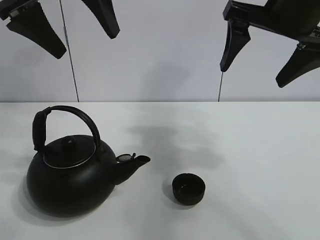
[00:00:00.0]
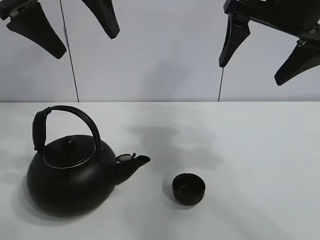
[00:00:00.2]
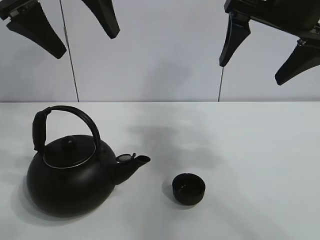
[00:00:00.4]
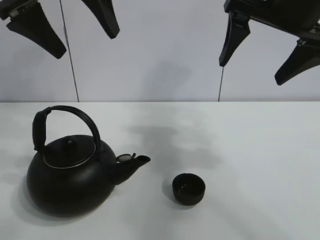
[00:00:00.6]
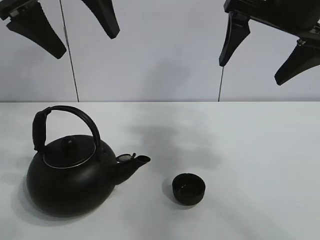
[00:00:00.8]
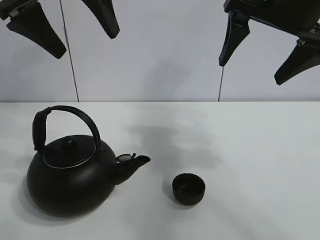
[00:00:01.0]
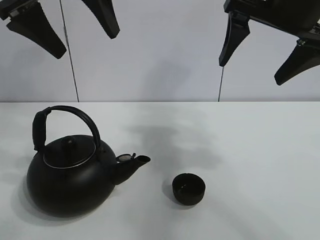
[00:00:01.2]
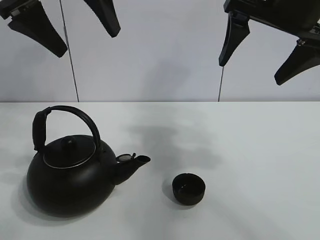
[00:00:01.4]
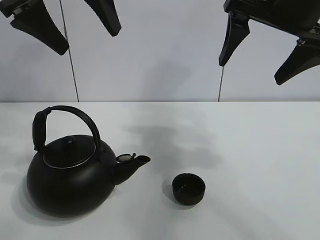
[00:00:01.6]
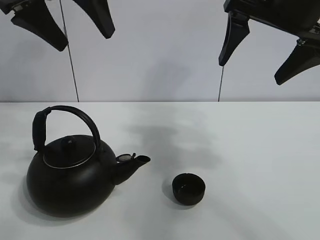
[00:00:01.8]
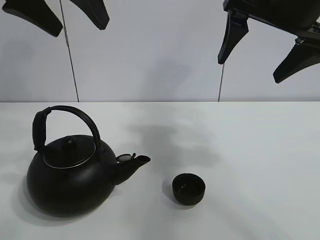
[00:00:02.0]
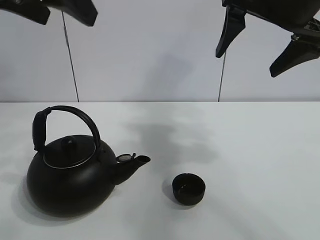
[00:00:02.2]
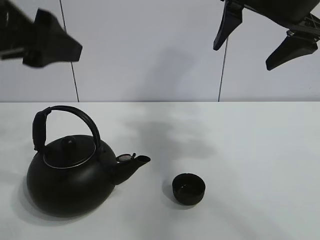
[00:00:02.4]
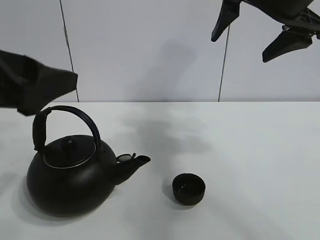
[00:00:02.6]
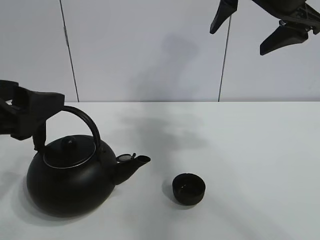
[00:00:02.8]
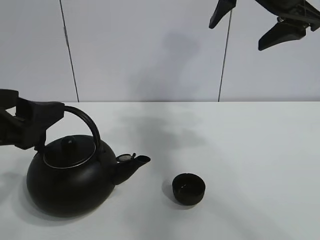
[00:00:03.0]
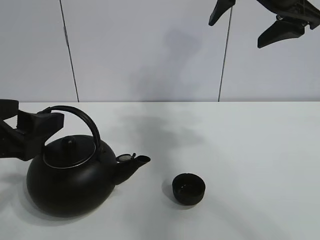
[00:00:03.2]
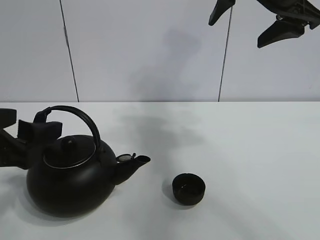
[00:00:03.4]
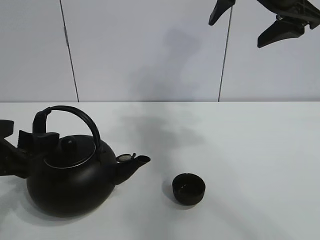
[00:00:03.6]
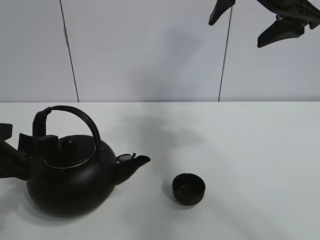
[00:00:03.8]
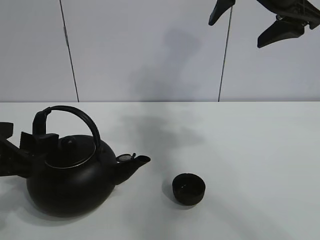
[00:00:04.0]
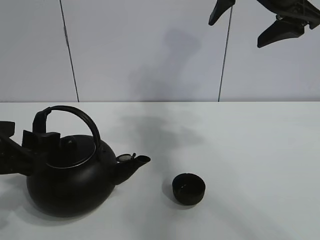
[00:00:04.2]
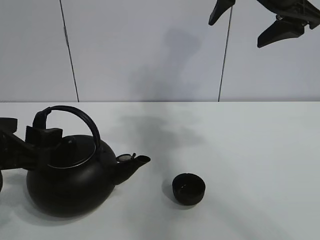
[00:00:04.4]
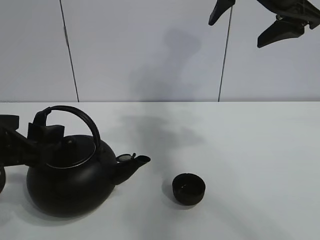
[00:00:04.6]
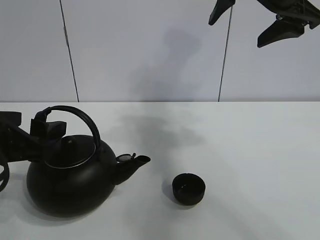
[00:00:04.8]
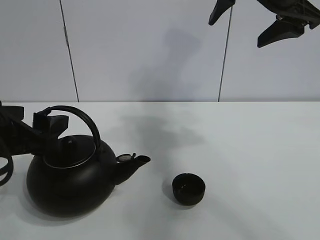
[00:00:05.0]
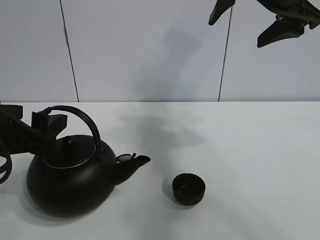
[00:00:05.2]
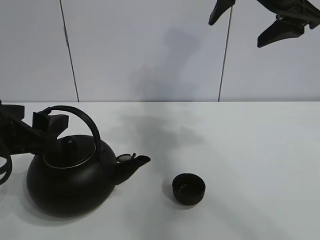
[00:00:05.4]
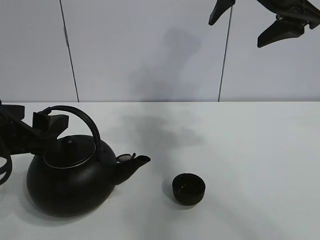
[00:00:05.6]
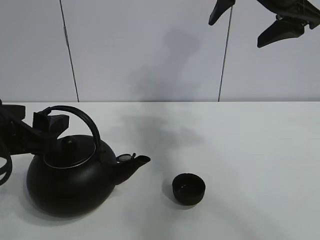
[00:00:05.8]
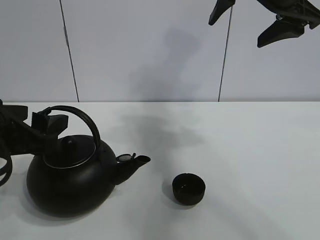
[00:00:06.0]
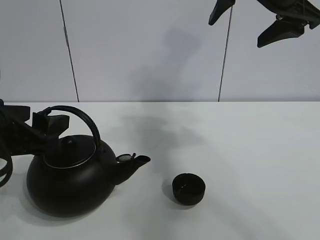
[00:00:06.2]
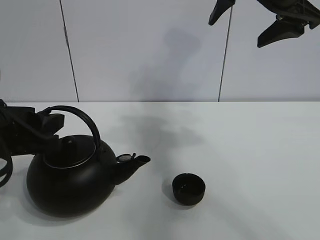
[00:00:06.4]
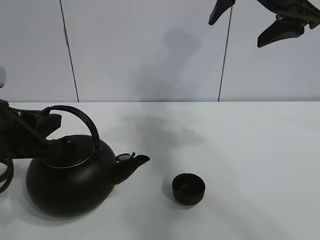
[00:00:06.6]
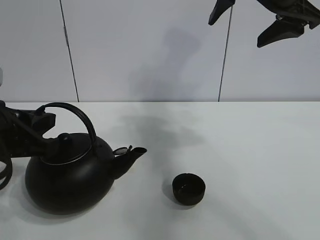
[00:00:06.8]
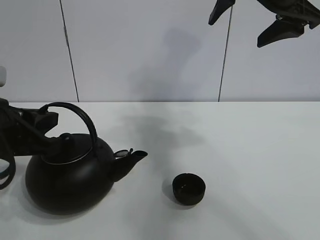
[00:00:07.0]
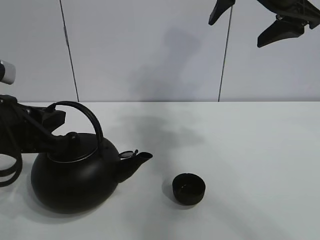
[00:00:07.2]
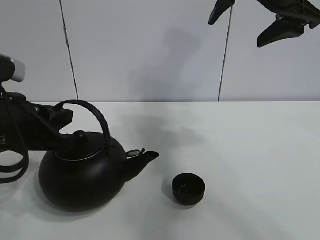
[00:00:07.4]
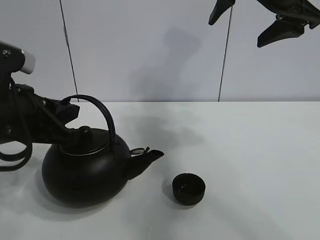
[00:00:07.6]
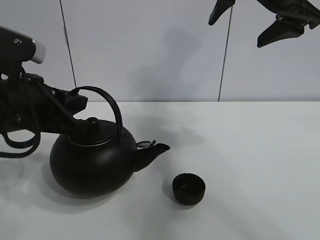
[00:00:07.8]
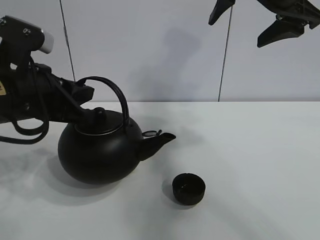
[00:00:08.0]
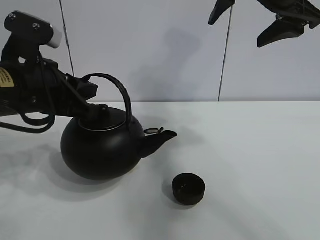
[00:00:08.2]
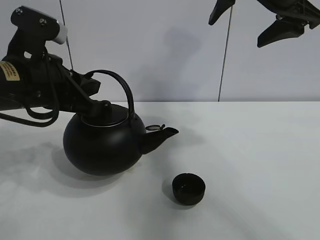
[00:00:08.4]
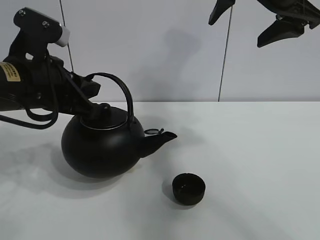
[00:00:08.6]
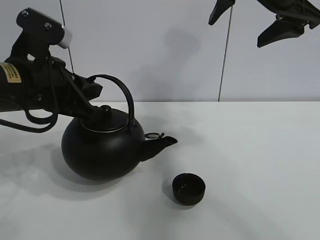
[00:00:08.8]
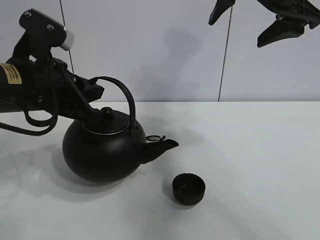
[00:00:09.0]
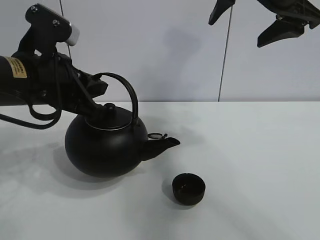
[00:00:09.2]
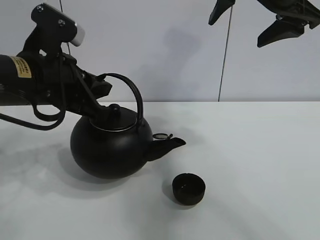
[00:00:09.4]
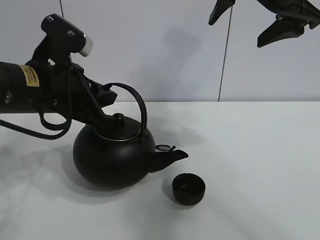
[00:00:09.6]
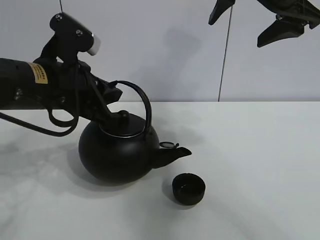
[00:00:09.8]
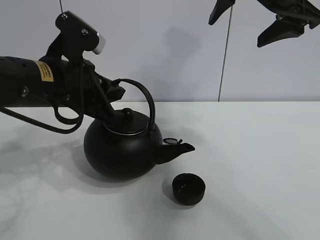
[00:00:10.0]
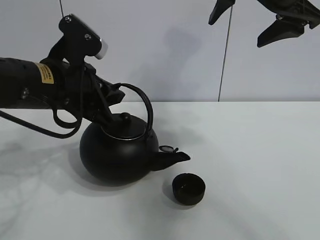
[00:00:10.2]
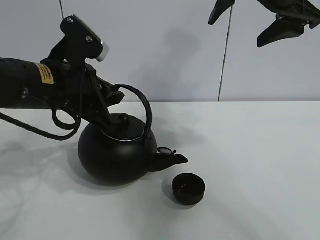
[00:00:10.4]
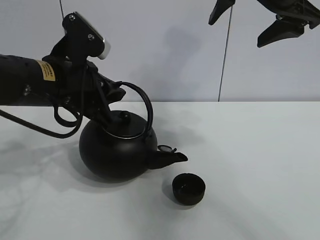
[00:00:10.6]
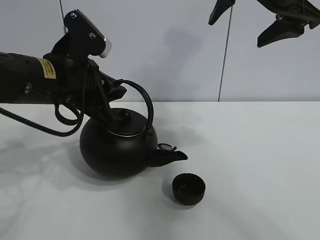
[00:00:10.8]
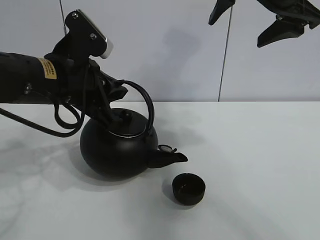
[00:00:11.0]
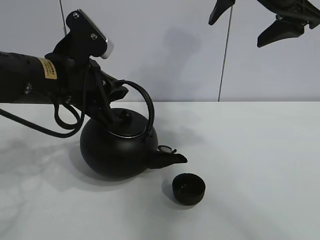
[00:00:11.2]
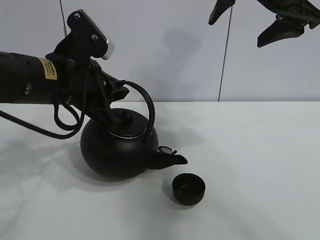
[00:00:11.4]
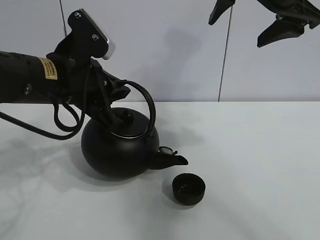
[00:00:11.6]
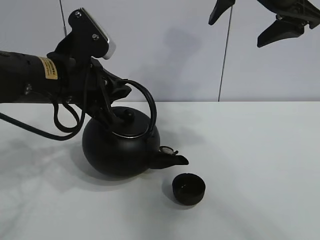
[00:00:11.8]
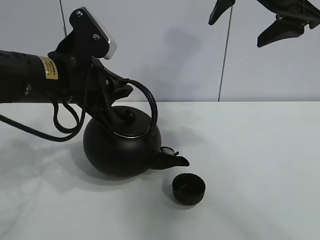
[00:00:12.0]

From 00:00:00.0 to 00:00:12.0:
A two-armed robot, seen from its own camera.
Task of the whole recording: pour tea into the teacup.
Step, from 00:00:00.0 to 00:00:06.8: Pick up the teapot with the left gripper.
From 00:00:00.0 to 00:00:01.6: The two grippers keep their place.
From 00:00:01.6 to 00:00:03.0: The left gripper heads downward, backward and to the left, covering roughly 20 cm.
From 00:00:03.0 to 00:00:06.0: The grippers make only small movements.
From 00:00:06.0 to 00:00:07.6: The left gripper closes up.
From 00:00:07.6 to 00:00:09.0: The left gripper moves approximately 5 cm.
From 00:00:09.0 to 00:00:12.0: The grippers make only small movements.

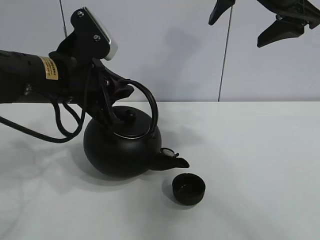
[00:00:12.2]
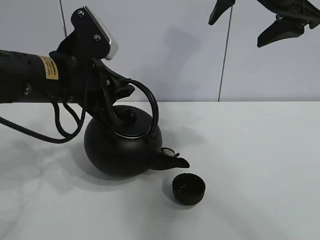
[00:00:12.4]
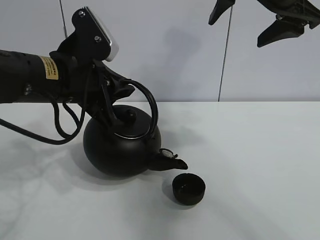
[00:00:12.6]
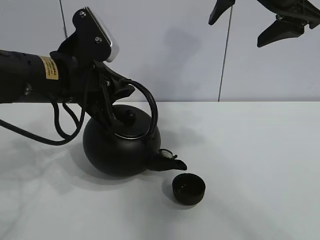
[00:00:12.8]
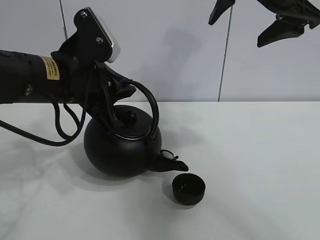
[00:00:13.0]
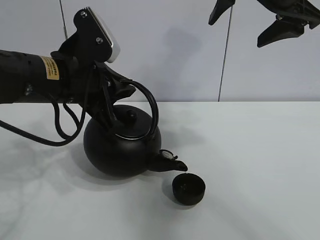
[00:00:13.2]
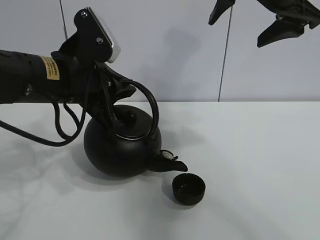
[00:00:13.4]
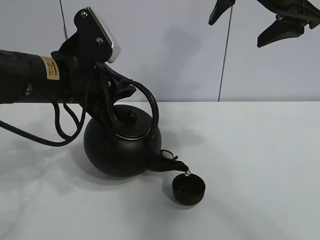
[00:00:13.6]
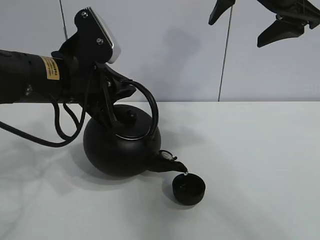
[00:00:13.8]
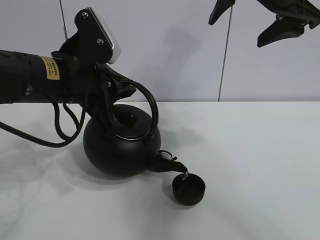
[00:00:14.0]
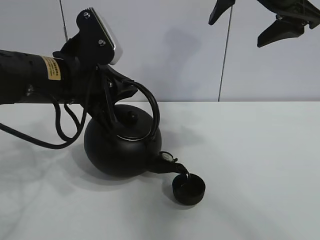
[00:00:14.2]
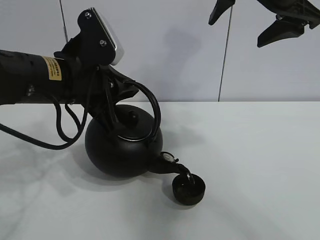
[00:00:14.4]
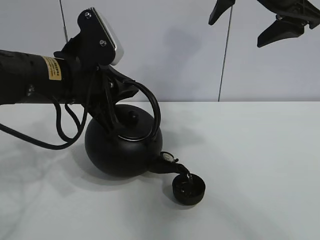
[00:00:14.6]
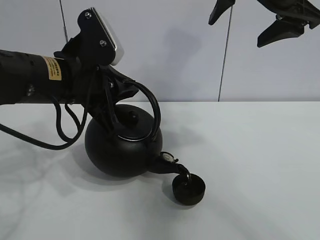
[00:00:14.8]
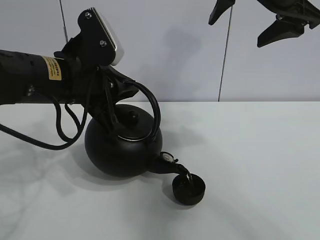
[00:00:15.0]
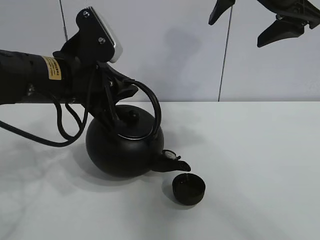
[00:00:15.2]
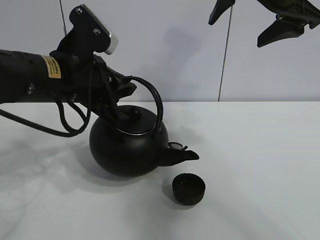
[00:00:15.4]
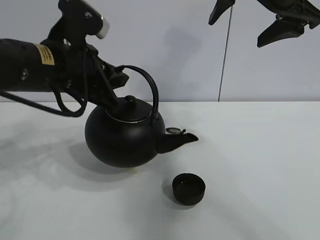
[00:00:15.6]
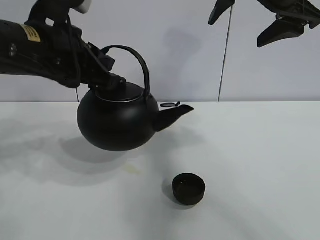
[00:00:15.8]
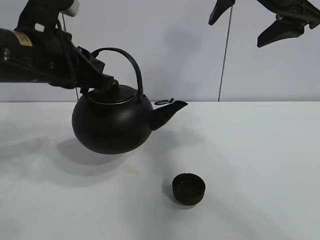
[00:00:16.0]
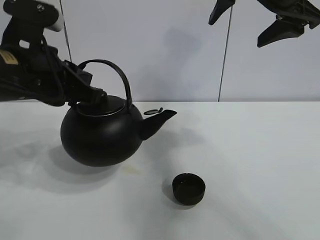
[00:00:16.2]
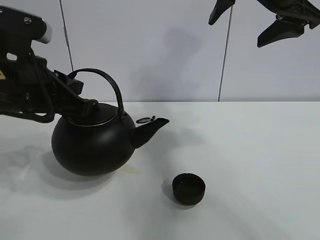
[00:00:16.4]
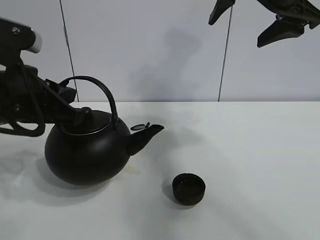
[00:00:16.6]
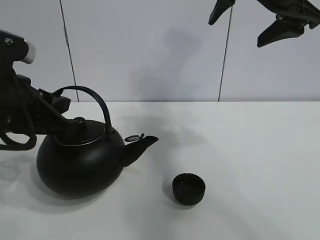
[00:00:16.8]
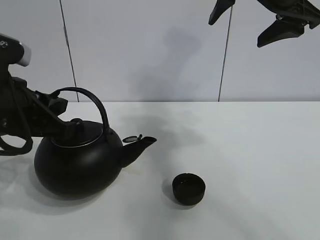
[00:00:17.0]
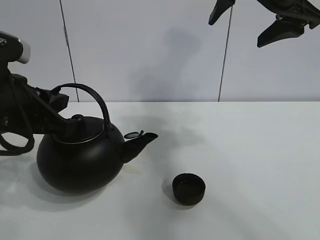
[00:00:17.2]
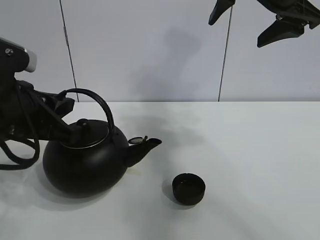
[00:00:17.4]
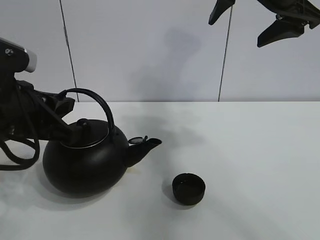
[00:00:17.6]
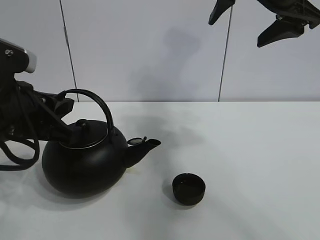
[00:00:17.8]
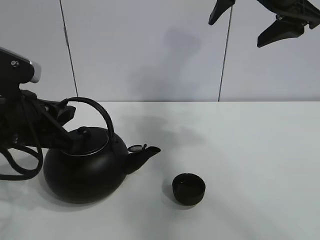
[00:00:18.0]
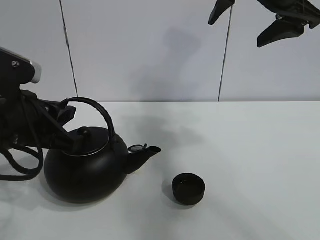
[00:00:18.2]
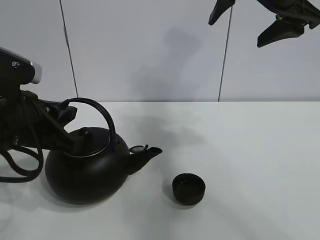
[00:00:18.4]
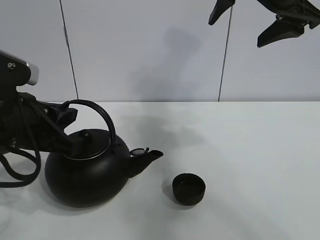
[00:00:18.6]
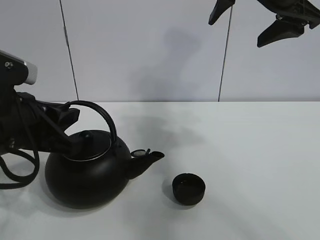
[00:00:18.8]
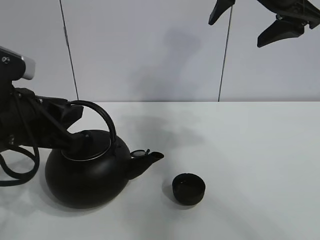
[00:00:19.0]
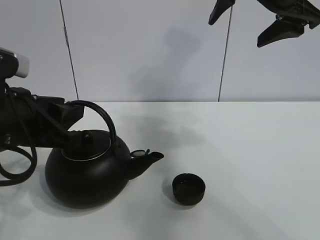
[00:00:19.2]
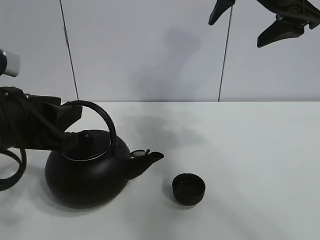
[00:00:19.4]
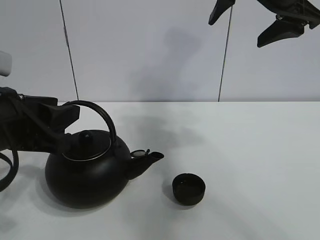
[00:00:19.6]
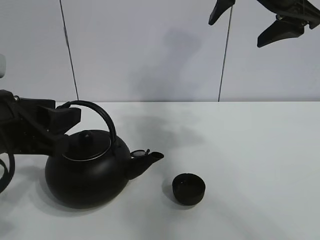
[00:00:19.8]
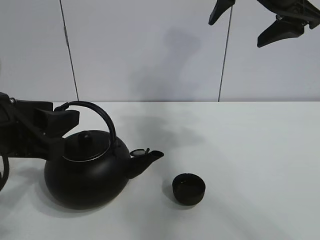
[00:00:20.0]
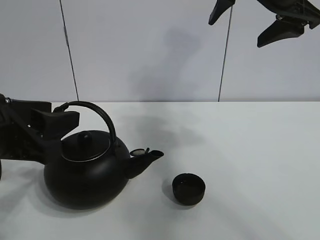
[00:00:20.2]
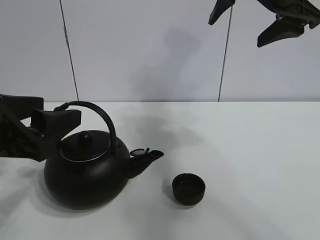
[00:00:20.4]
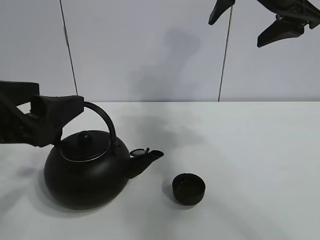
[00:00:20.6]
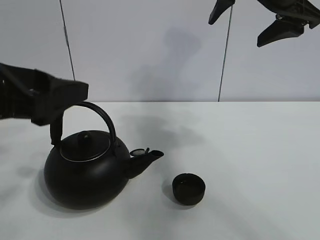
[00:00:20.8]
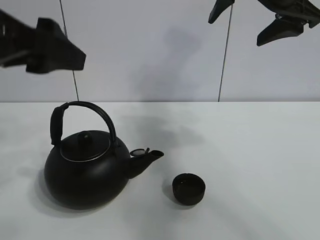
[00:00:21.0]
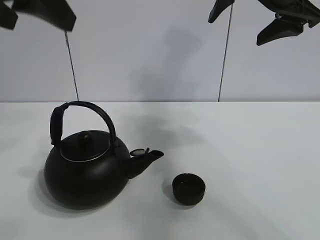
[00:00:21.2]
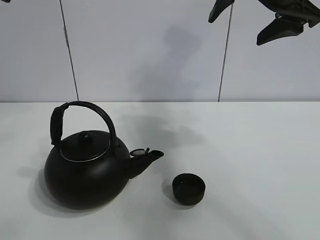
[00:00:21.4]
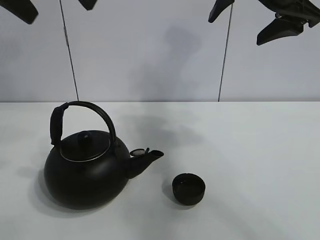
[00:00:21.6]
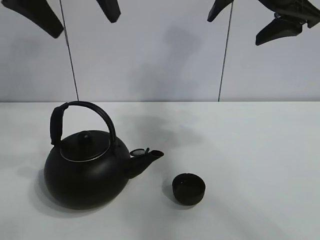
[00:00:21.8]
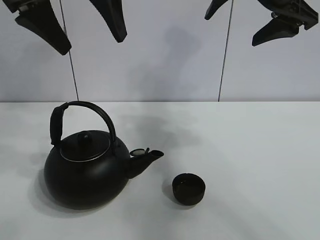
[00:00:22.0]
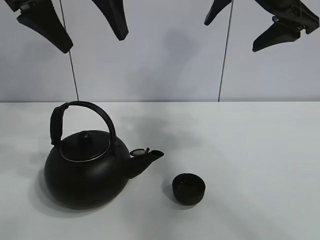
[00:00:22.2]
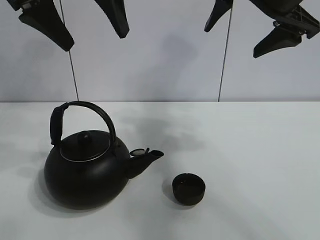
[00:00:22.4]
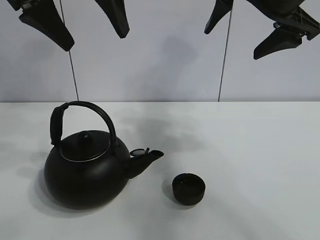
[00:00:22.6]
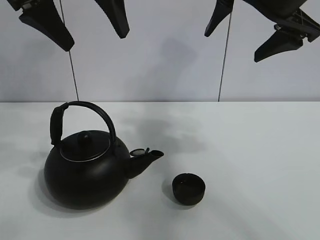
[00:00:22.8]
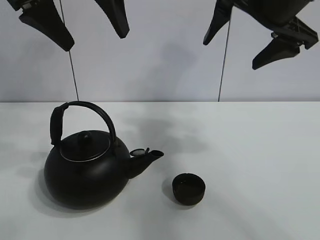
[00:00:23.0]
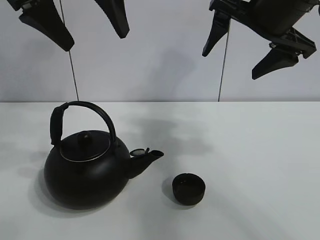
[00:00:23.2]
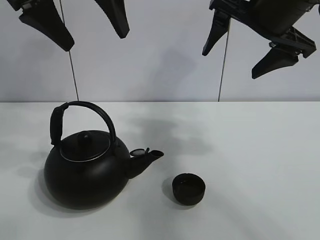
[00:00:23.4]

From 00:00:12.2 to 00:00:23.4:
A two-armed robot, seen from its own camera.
Task of the whole recording: pour tea into the teacup.
Step, from 00:00:12.2 to 00:00:15.2: Pour tea into the teacup with the left gripper.
From 00:00:12.2 to 00:00:13.8: The two grippers keep their place.
From 00:00:13.8 to 00:00:15.4: There are only small adjustments of the grippers.
From 00:00:15.4 to 00:00:17.0: The left gripper shifts some 10 cm to the left and backward.
From 00:00:17.0 to 00:00:18.6: The grippers make only small movements.
From 00:00:18.6 to 00:00:20.2: The left gripper opens up.
From 00:00:20.2 to 00:00:21.8: The left gripper moves upward and forward, about 25 cm, and opens its fingers.
From 00:00:21.8 to 00:00:23.4: The grippers make only small movements.
